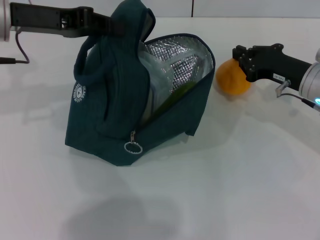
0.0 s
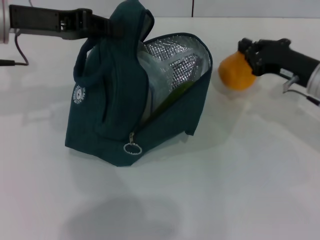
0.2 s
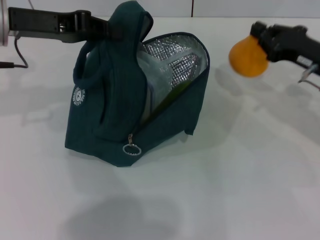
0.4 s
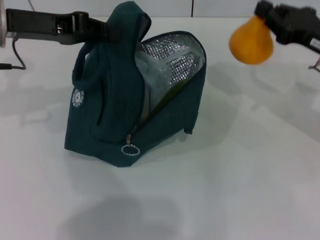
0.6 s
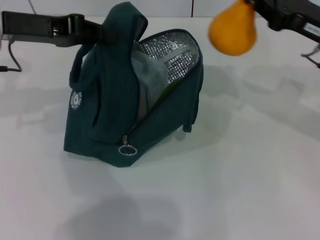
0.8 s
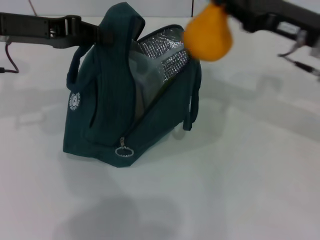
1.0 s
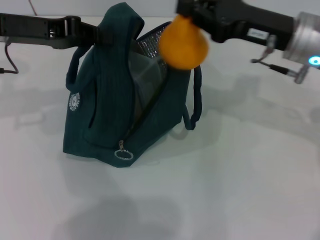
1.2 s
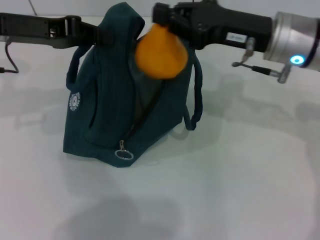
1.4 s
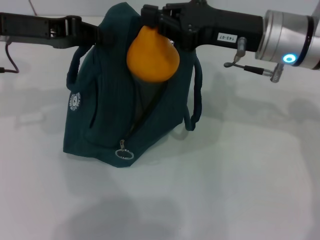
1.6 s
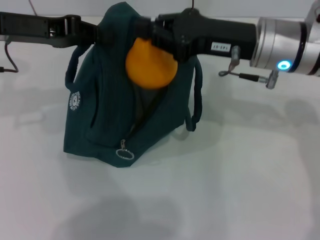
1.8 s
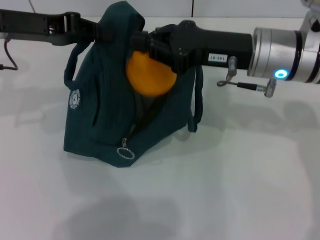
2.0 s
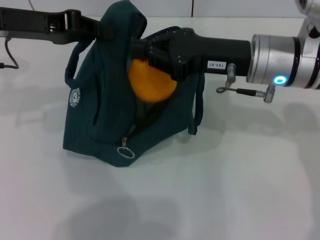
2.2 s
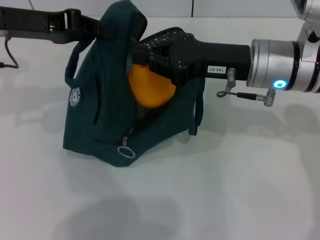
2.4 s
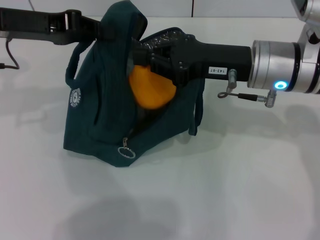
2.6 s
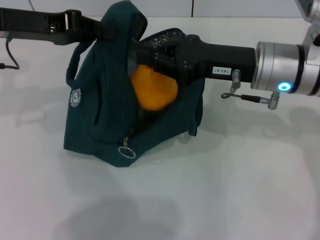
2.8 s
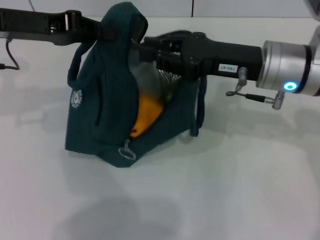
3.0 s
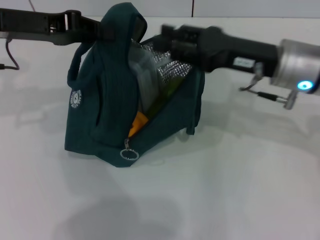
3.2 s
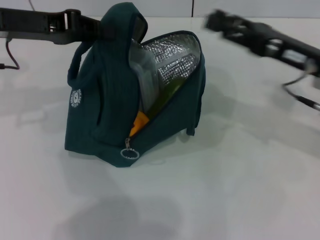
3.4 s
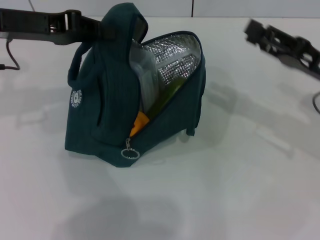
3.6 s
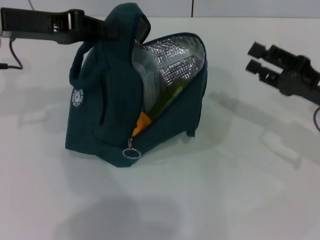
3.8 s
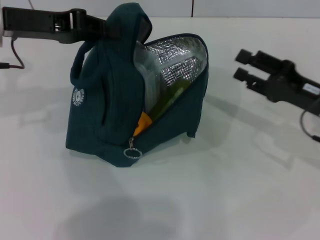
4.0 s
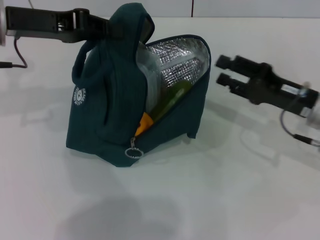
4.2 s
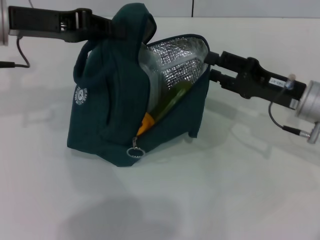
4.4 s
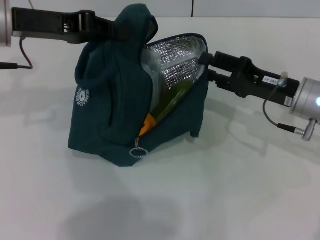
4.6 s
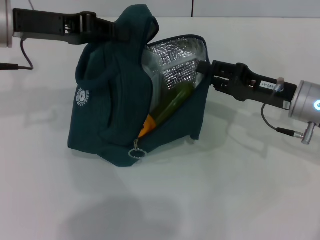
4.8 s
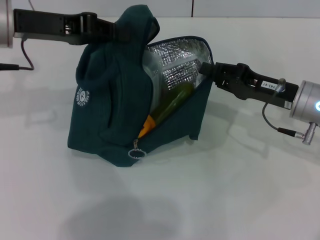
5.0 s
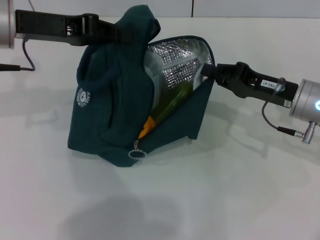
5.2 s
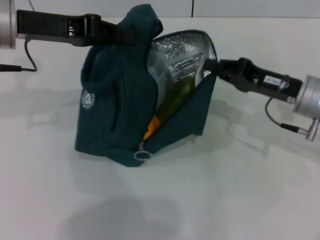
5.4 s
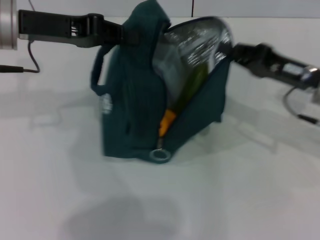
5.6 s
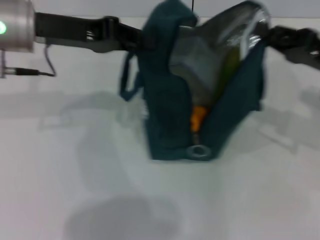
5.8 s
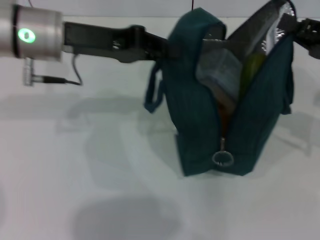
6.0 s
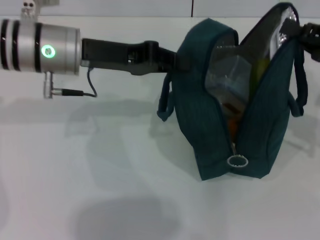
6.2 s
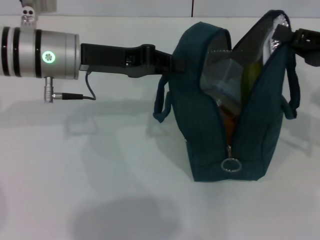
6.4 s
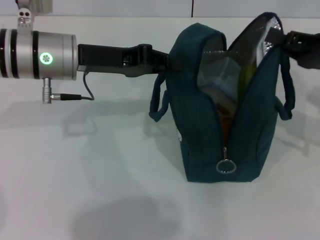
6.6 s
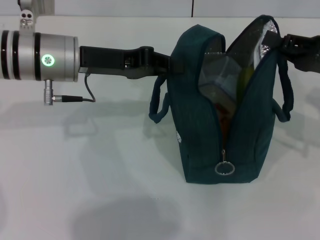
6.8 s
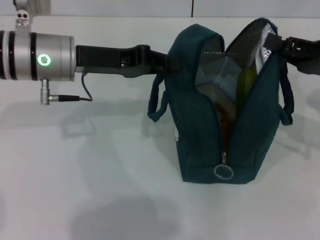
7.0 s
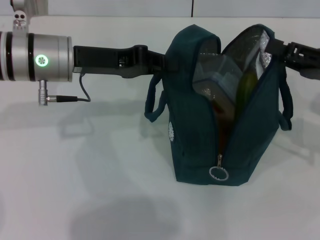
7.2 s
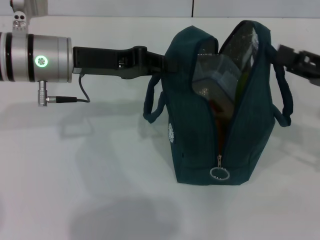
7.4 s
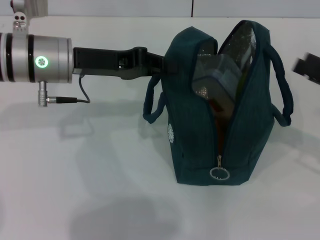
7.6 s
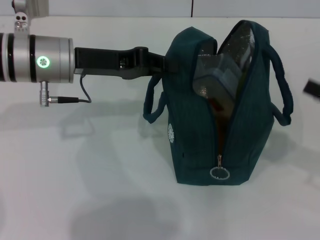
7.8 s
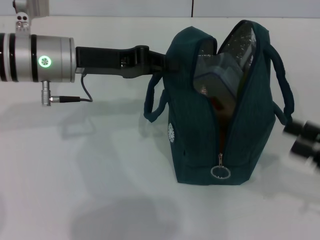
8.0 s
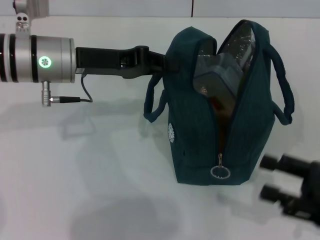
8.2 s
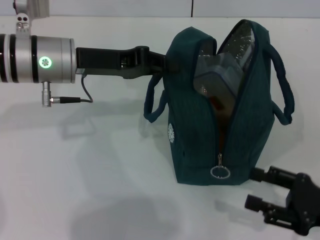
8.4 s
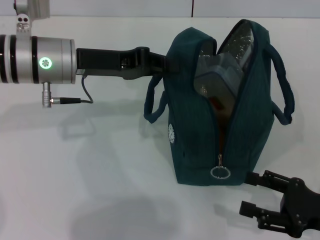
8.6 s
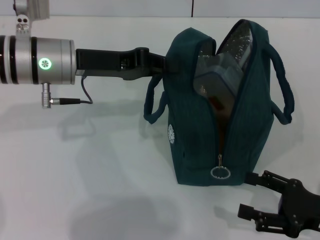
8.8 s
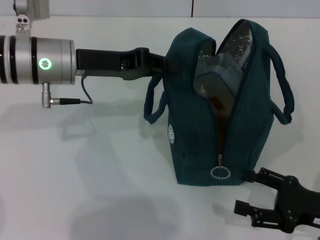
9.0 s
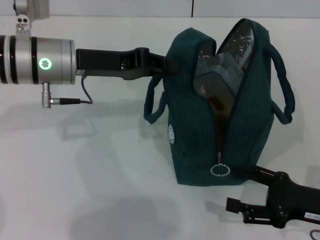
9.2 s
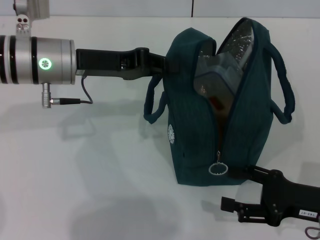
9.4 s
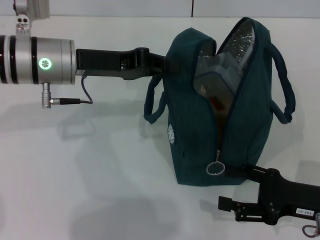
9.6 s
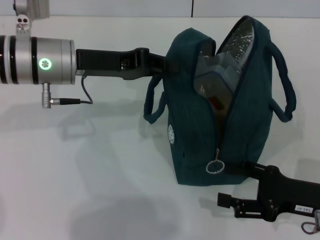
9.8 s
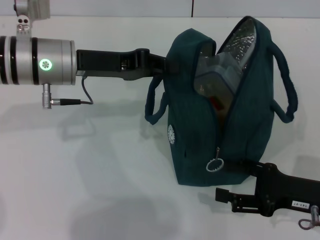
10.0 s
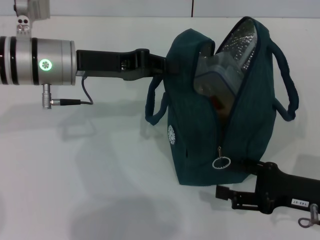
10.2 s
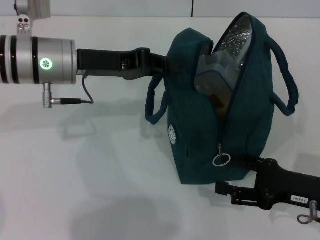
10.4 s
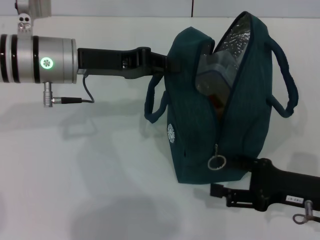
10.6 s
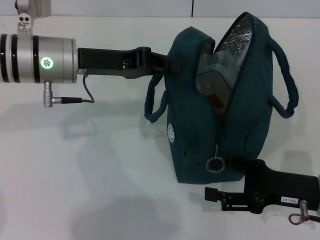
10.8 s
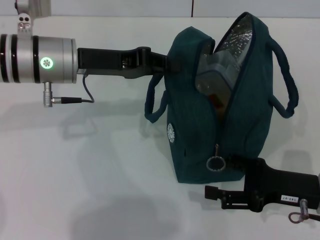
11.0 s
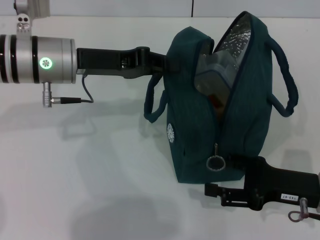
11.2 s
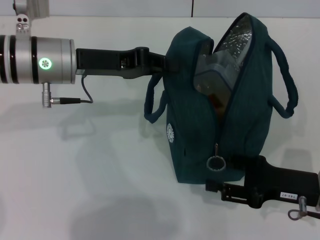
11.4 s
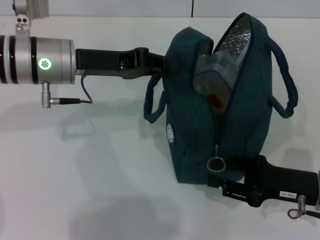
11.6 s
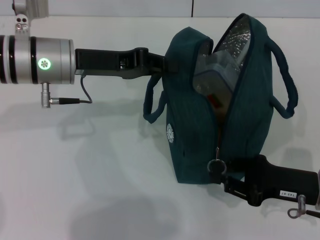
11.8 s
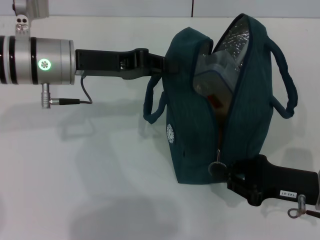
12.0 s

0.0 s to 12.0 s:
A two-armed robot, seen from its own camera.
Step, 3.2 to 7.4 s: Hold the lunch bag with your right hand.
0.0 to 1.6 s: The right gripper is displaced upward and to the left by approximately 15 cm.
3.0 to 4.4 s: The right gripper moves downward and to the right, roughly 10 cm, and opens up.
4.4 to 6.0 s: The left gripper goes about 5 cm to the right; the right gripper moves to the right and upward, approximately 10 cm, and closes up.
6.0 to 7.6 s: The right gripper moves some 5 cm, and opens its fingers.
7.6 to 9.0 s: The right gripper is displaced downward and backward by roughly 10 cm, and opens.
9.0 to 10.4 s: The grippers stay close to where they were, moving slightly.
10.4 to 12.0 s: The right gripper closes.

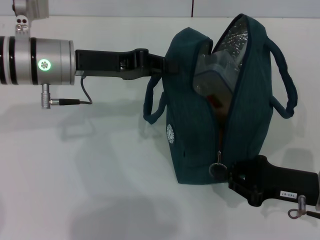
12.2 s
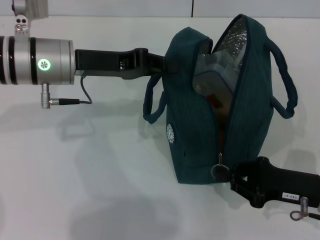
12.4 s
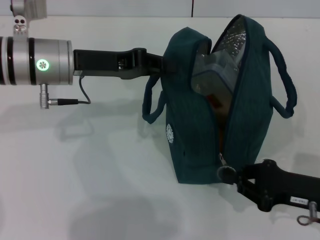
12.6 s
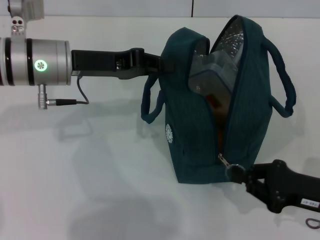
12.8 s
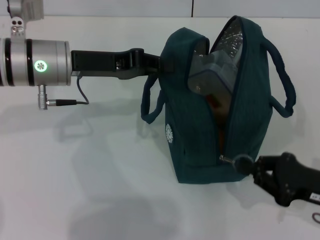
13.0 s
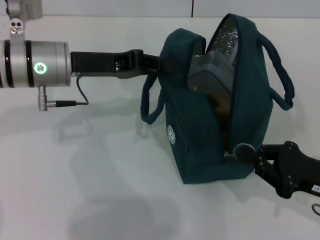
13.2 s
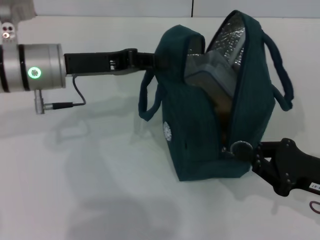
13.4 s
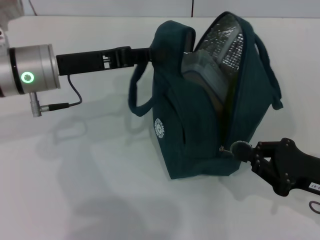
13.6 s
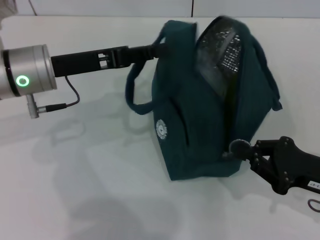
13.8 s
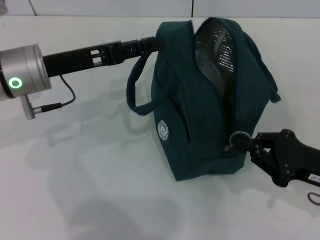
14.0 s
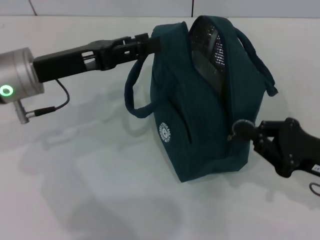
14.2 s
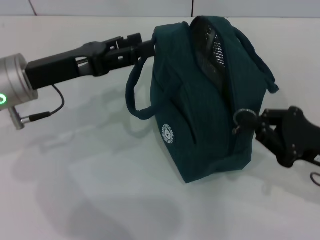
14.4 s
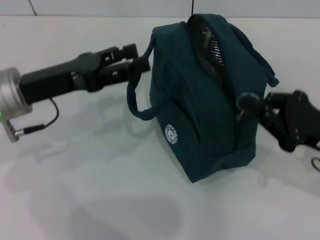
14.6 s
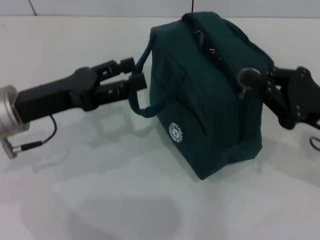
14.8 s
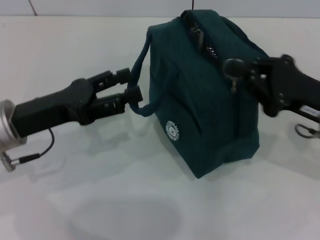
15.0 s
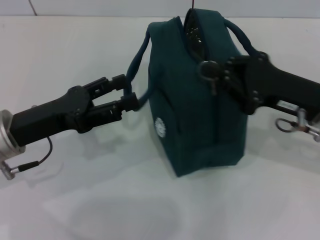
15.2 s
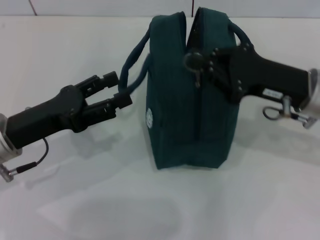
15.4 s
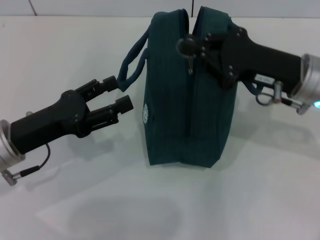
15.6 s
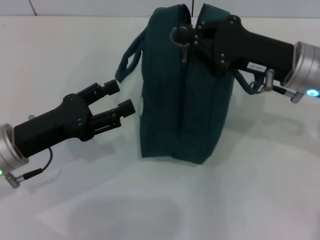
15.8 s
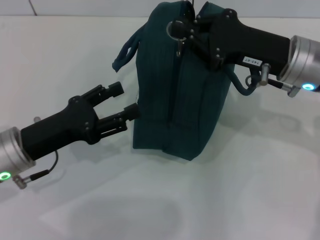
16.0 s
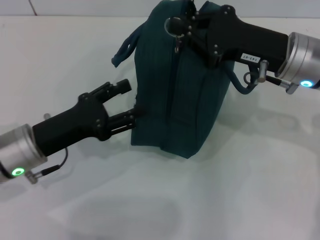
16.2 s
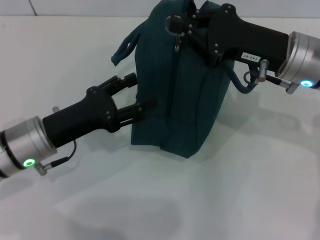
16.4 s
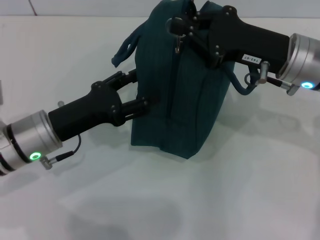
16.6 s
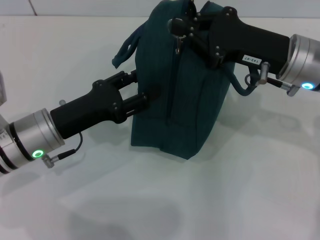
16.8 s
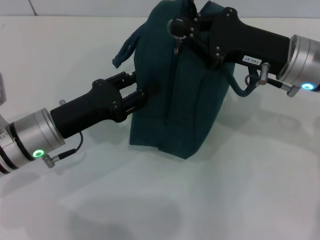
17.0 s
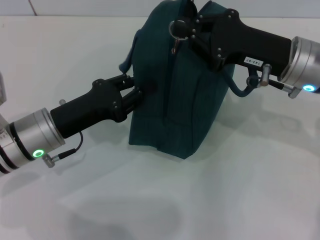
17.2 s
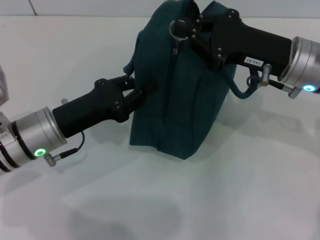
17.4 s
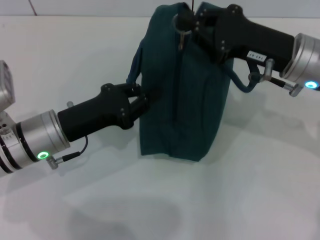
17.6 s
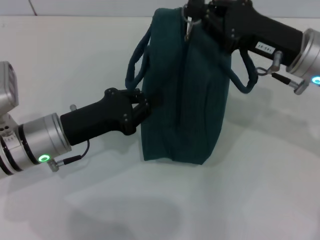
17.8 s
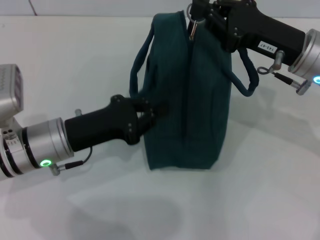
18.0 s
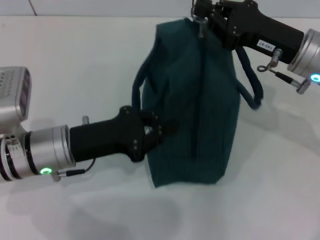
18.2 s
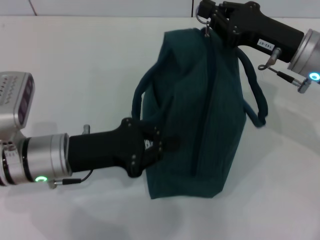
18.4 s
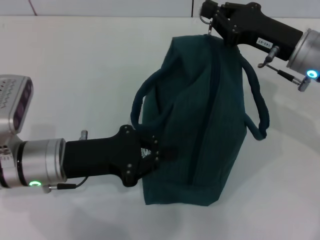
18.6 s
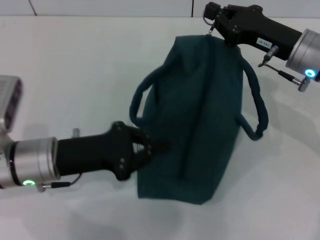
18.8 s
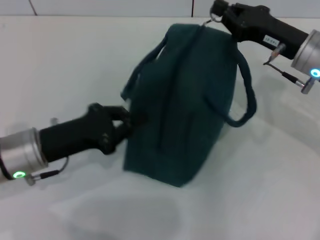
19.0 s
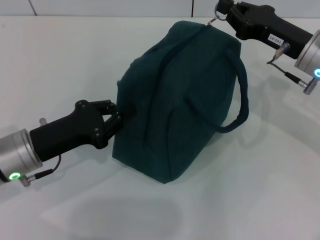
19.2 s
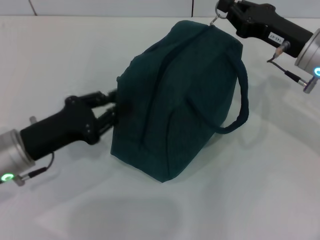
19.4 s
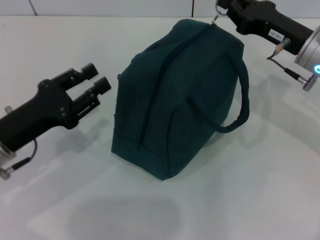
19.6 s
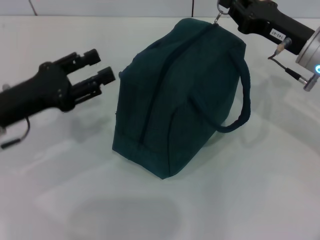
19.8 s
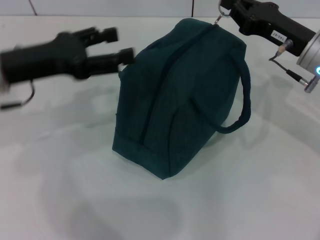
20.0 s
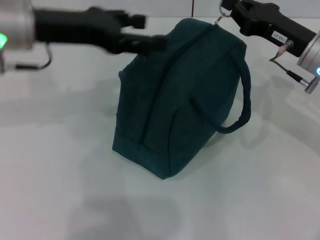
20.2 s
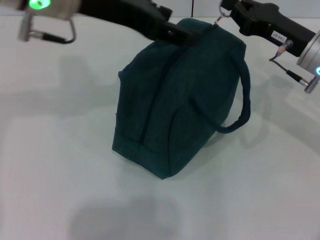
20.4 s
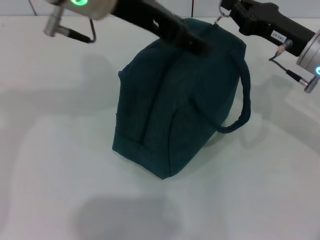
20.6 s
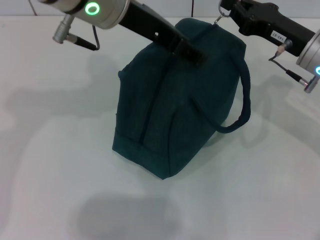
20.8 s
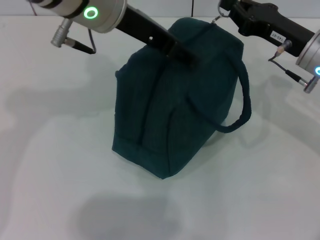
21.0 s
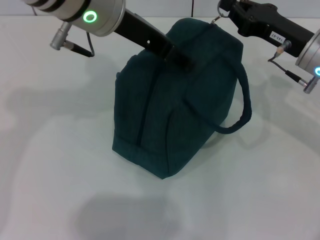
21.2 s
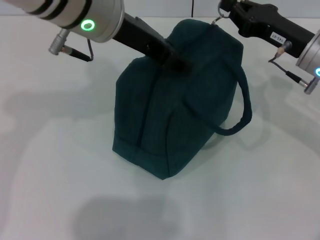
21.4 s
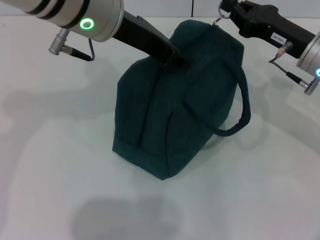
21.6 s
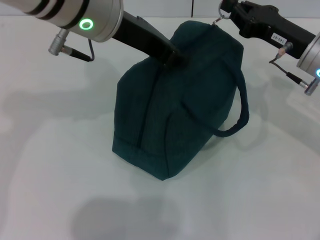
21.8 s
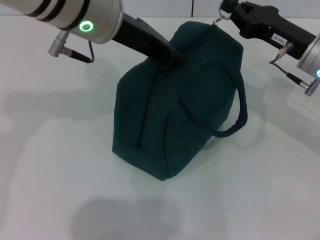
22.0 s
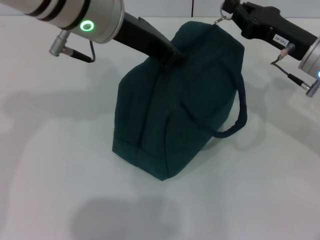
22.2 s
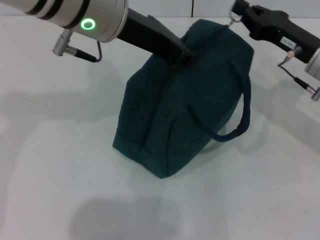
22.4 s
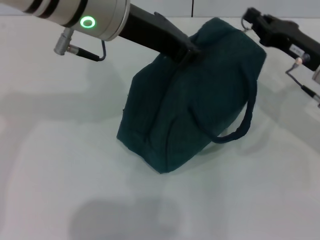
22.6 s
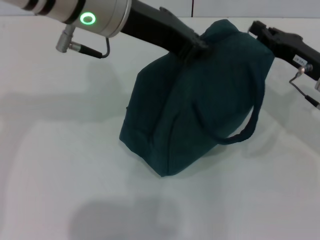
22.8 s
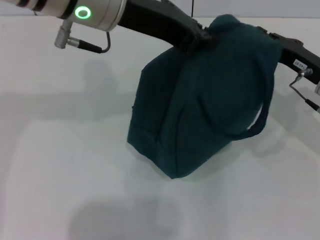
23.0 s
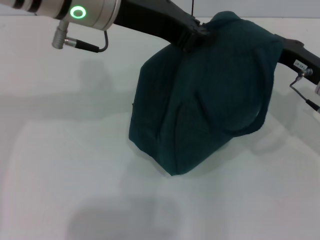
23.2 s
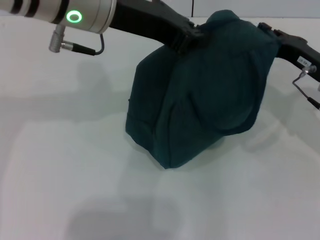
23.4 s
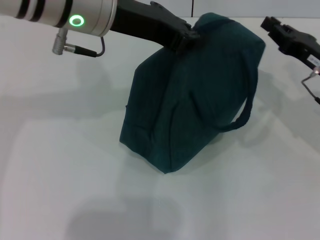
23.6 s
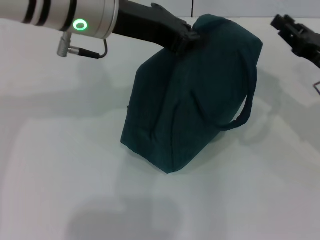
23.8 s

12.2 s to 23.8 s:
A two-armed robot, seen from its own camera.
Step, 12.2 to 14.2 s: Hold the lunch bag with your left hand.
Step, 14.4 to 23.8 s: Zip up the lunch bag with your right hand.
13.6 to 15.0 s: The left gripper travels backward by approximately 10 cm, and opens its fingers. Meanwhile the right gripper is displaced forward and upward by roughly 10 cm.
15.0 to 16.6 s: The left gripper moves about 5 cm. The right gripper travels to the left and forward by approximately 10 cm.
16.6 to 18.0 s: The left gripper closes up.
18.0 to 19.4 s: The left gripper ends up approximately 5 cm from where it was.
19.4 to 21.0 s: The left gripper moves upward, to the right and forward, some 25 cm, and opens up.
21.0 to 22.4 s: The left gripper closes.
22.4 to 23.8 s: The right gripper goes approximately 5 cm to the right.
